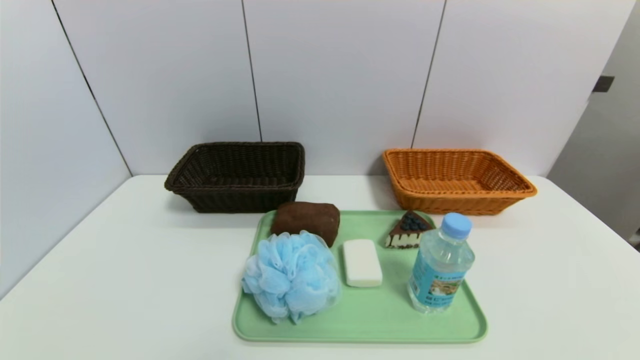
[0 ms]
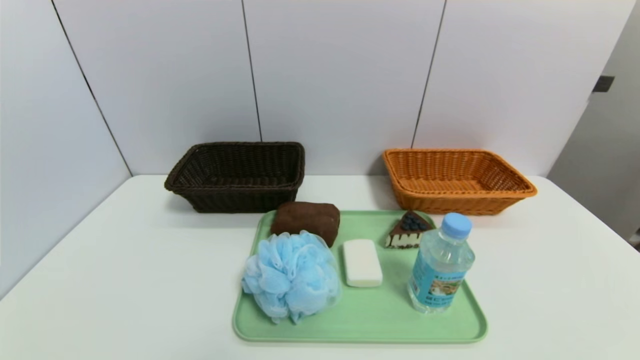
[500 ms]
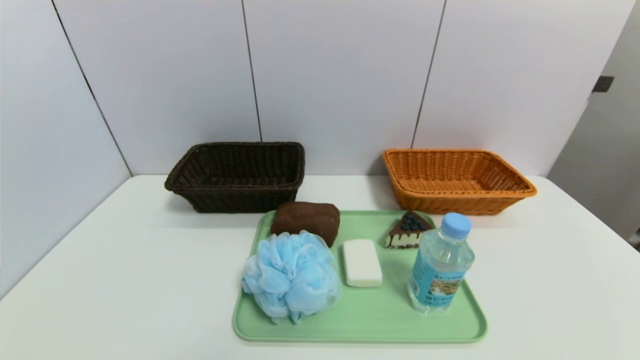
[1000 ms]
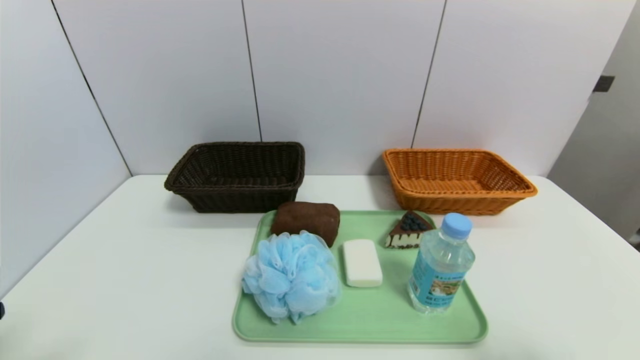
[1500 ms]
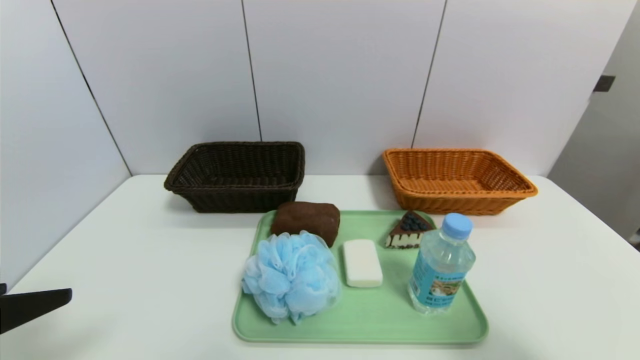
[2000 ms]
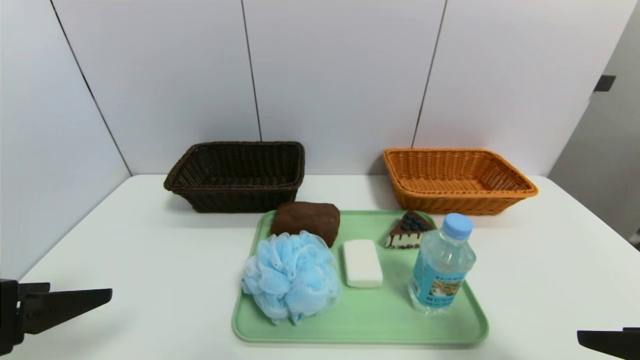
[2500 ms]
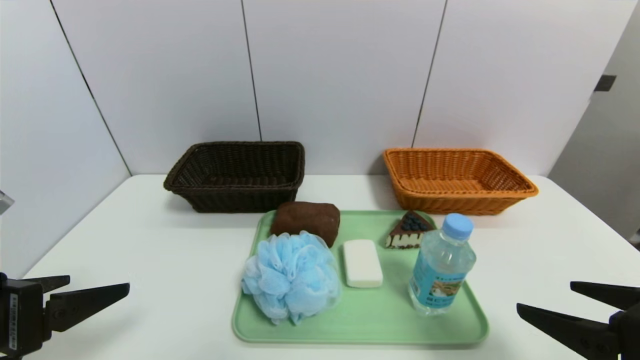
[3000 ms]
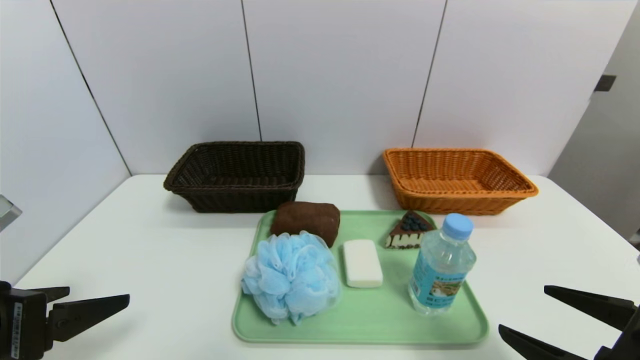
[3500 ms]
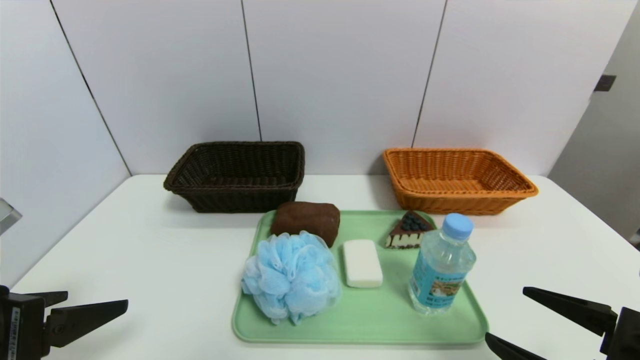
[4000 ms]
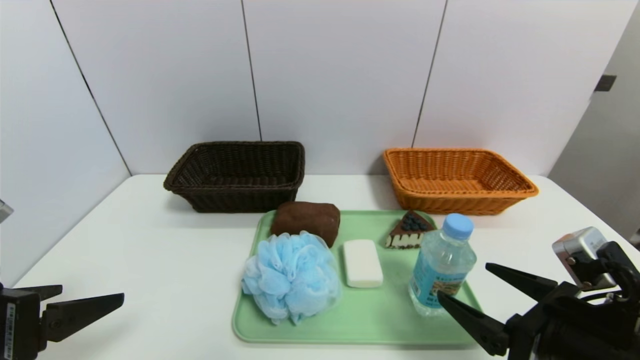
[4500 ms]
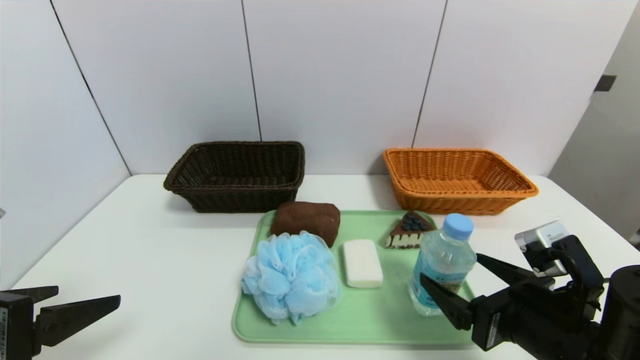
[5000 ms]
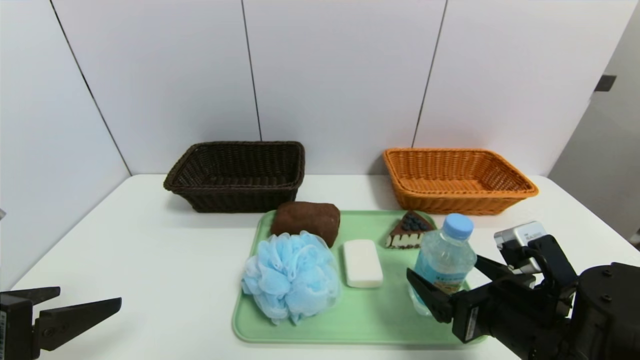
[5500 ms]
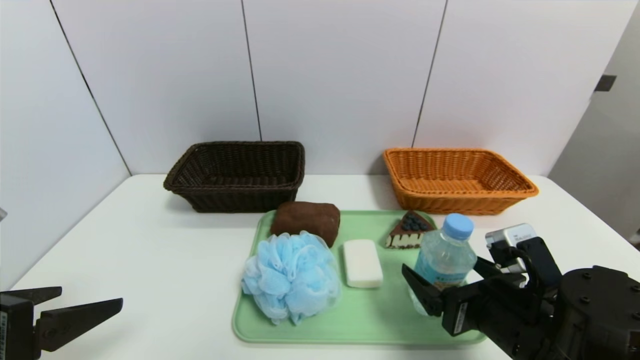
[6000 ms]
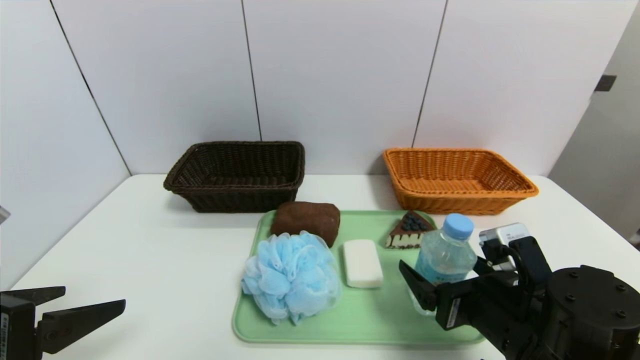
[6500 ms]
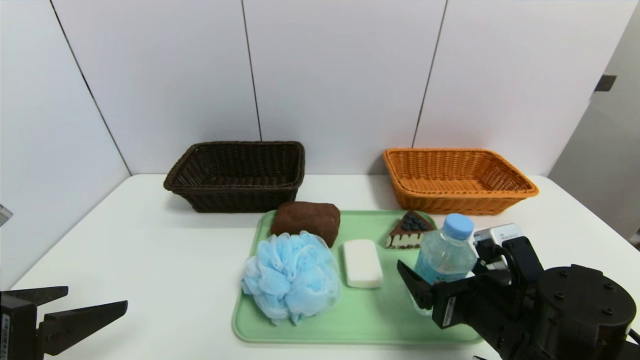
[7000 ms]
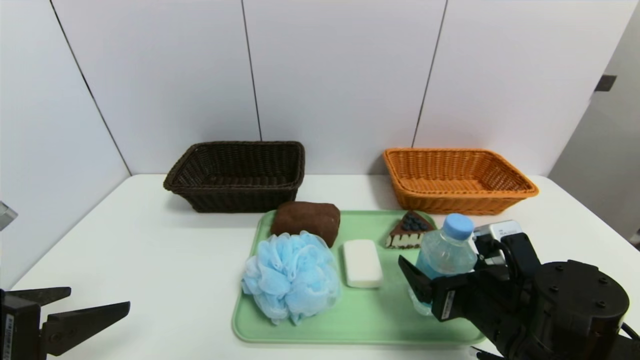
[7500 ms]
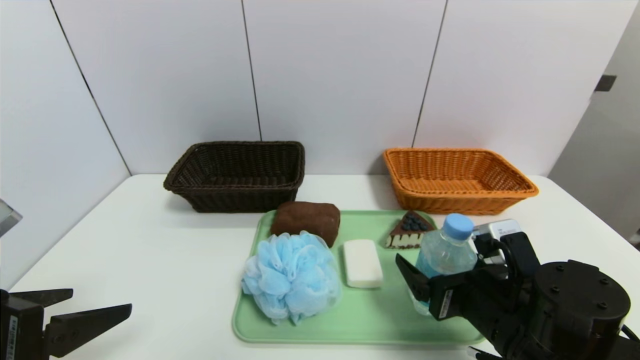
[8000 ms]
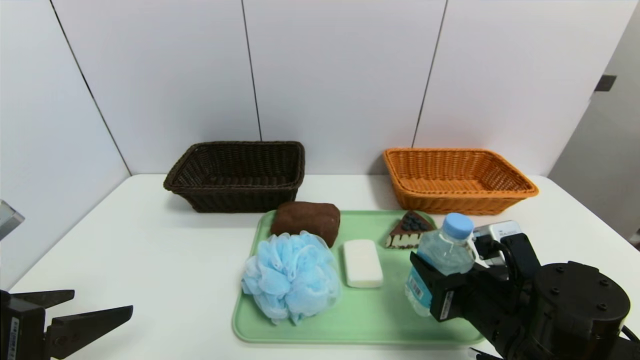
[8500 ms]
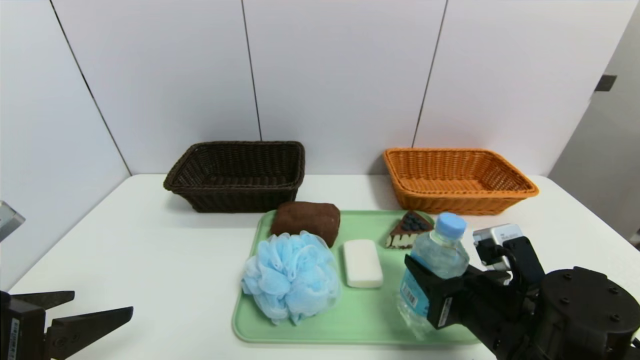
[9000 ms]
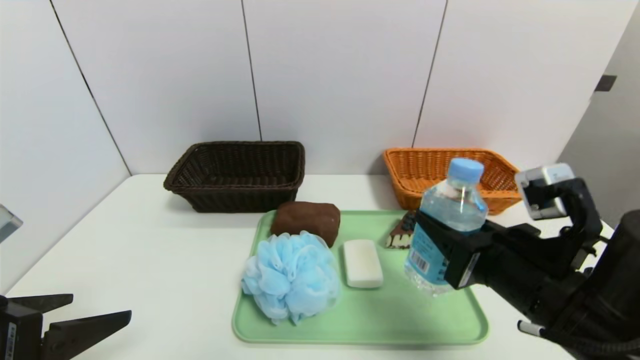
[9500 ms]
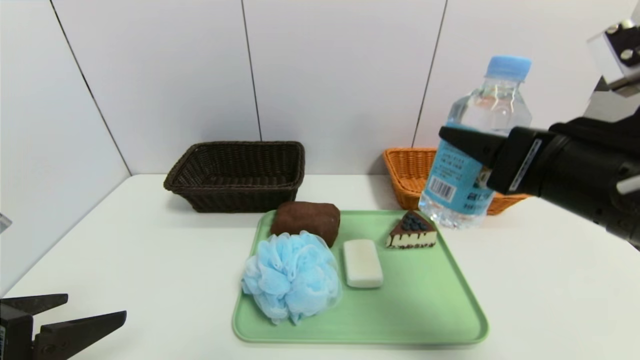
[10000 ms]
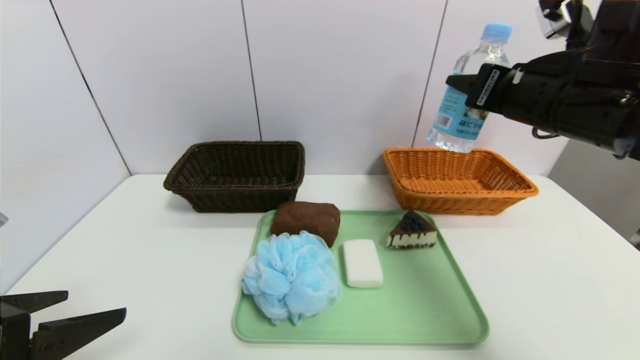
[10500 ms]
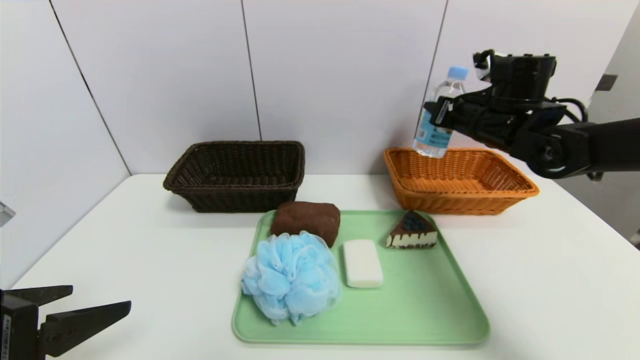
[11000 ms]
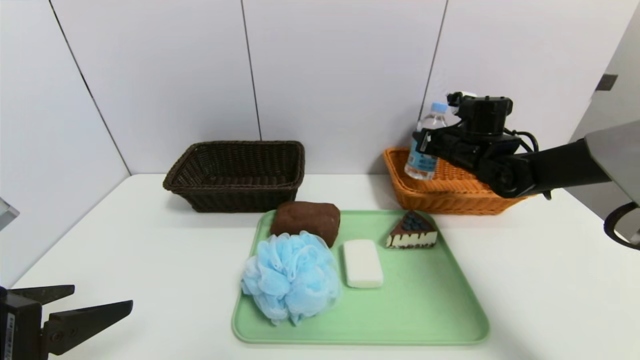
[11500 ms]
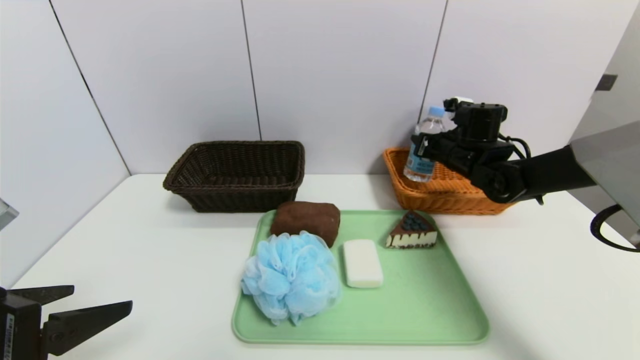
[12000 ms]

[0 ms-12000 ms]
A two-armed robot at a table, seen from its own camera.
Task of the whole recording: place the food in the right basket with the right gripper, and place the non food items in the left basket with the left gripper.
0 ms to 2000 ms: The left gripper is displaced upward and forward by roughly 20 cm. Meanwhile the right gripper shifts some 20 cm upward.
2000 ms to 4000 ms: The right gripper shifts some 15 cm downward and to the left. The left gripper ends up some 5 cm from where it was.
4000 ms to 6000 ms: The right gripper moves forward and to the left, roughly 10 cm.
6000 ms to 8000 ms: There are only small adjustments of the grippers.
8000 ms to 10000 ms: The right gripper is displaced upward by some 20 cm, and closes its fingers.
10000 ms to 12000 ms: The right gripper shifts about 30 cm forward and downward.

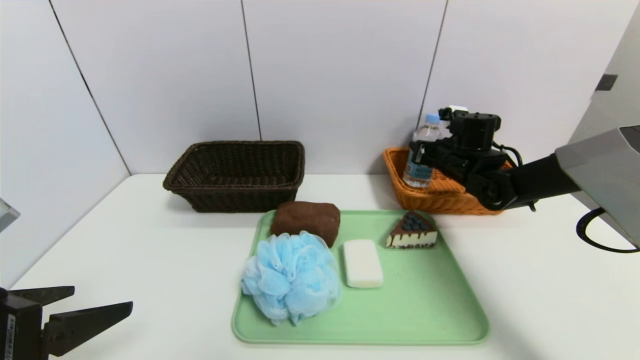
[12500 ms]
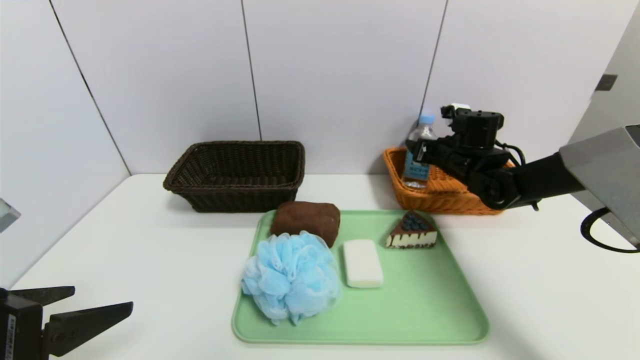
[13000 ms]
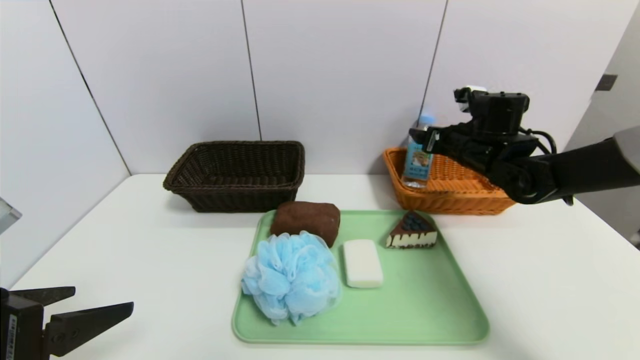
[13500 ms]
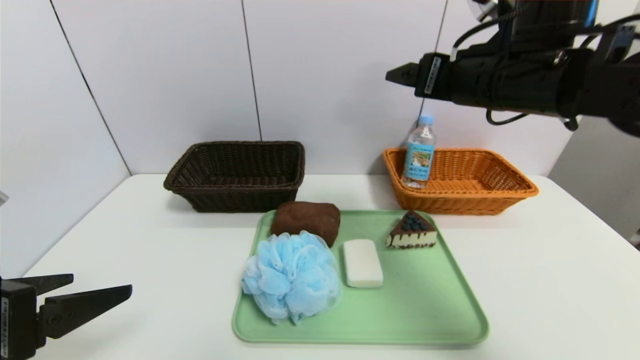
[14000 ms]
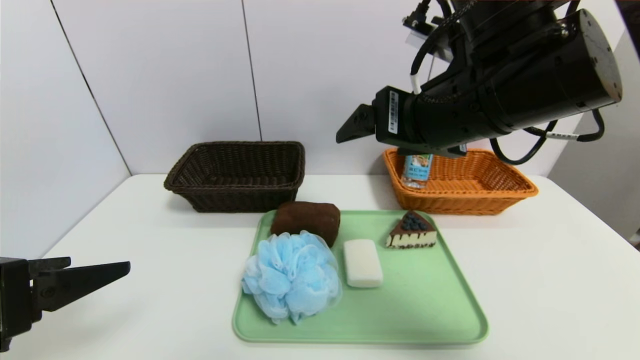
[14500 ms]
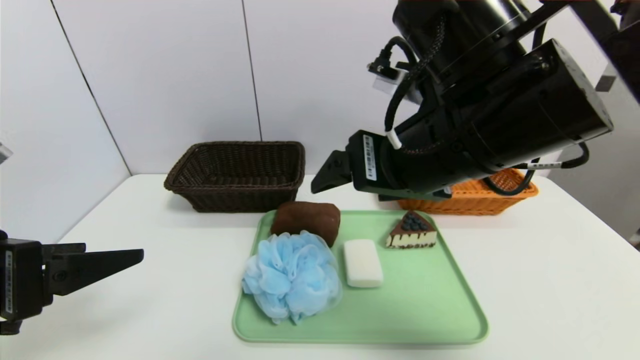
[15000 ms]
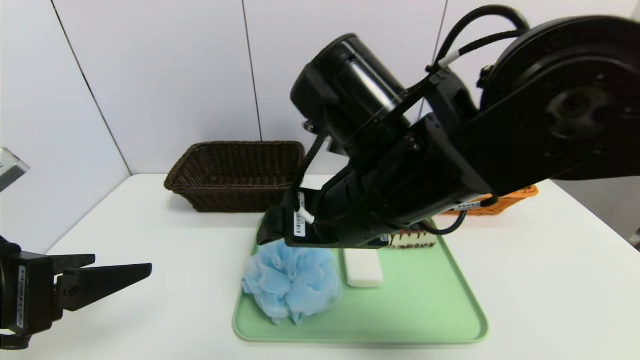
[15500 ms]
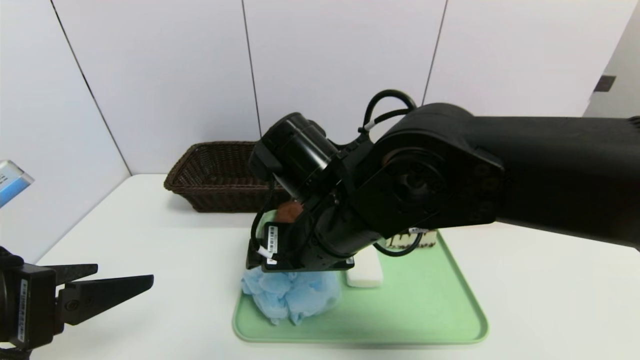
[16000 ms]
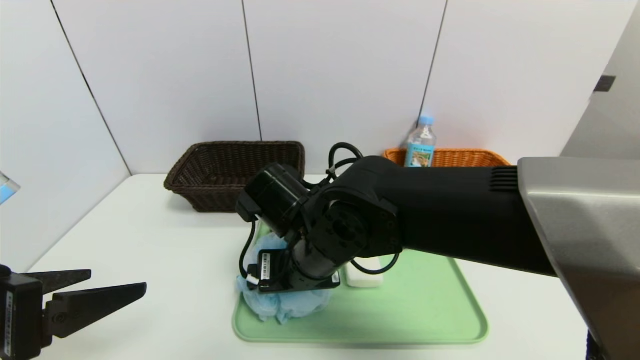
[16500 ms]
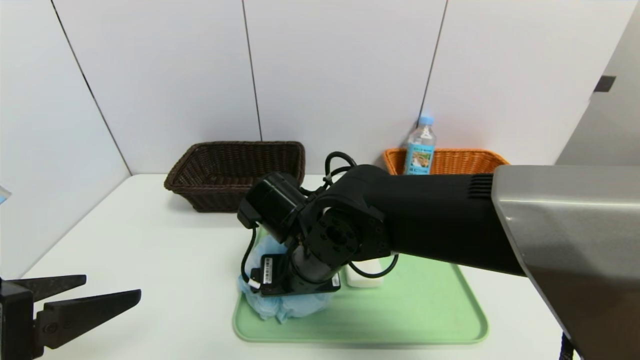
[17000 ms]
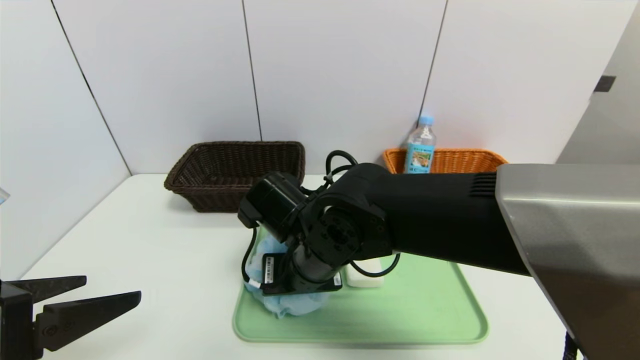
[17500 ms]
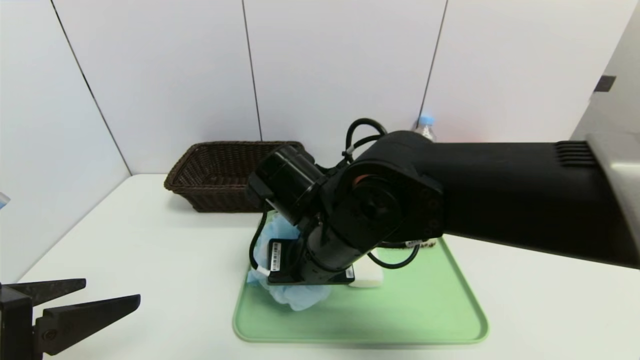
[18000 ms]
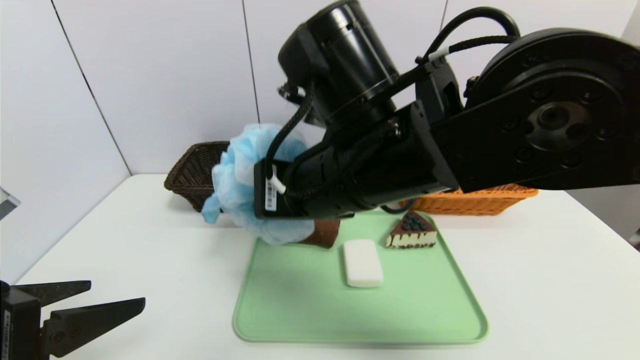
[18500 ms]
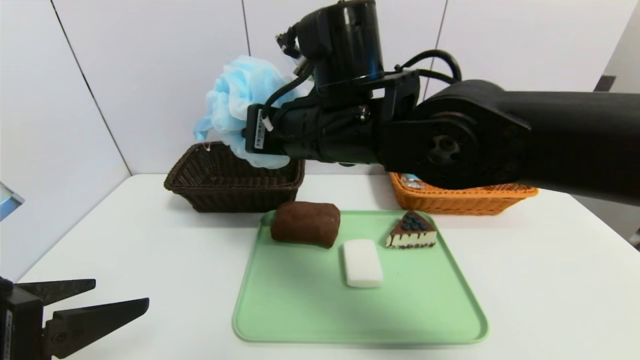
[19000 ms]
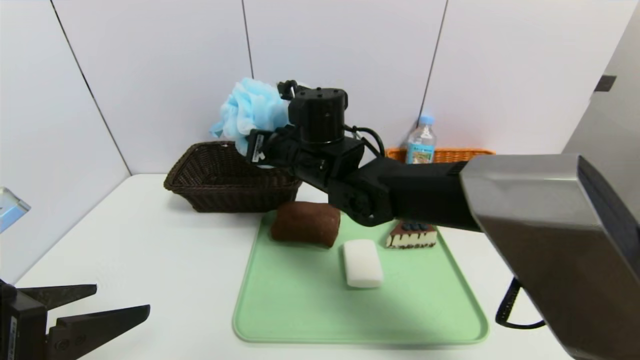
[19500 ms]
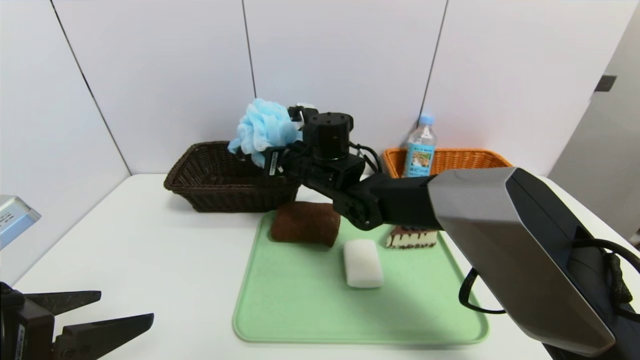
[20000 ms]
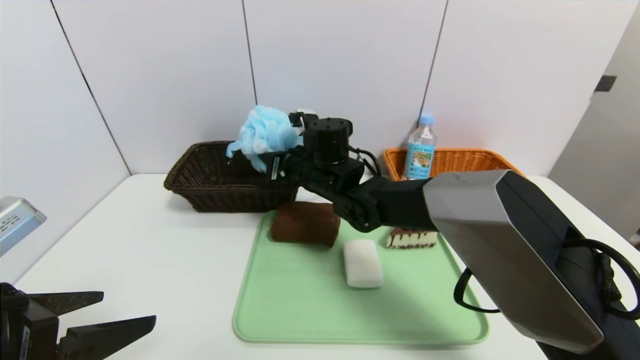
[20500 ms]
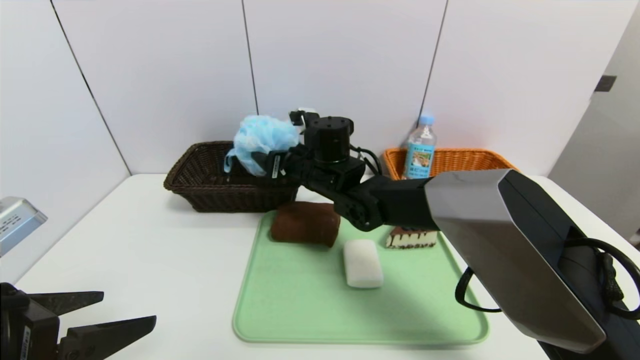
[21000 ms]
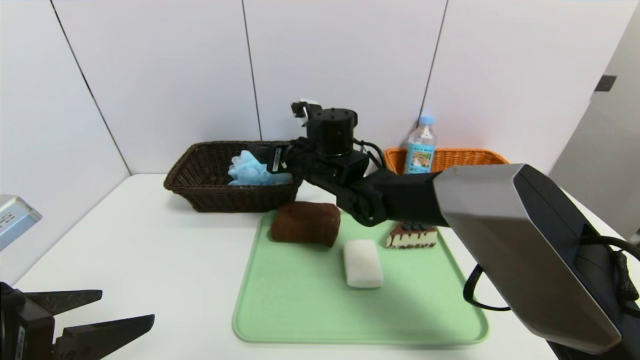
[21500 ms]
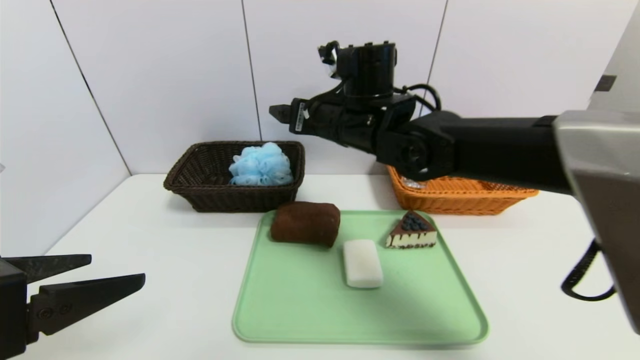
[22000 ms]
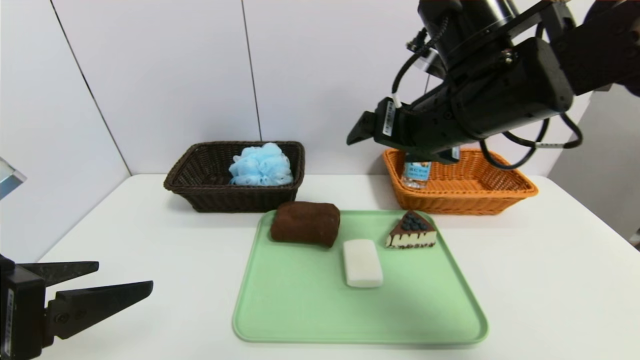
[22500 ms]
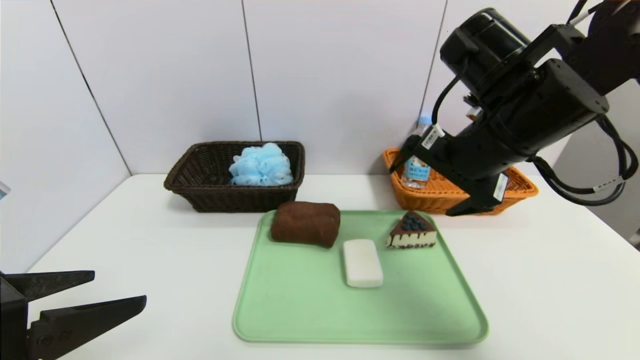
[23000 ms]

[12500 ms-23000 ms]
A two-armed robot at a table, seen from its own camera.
Task of the whole recording: place the food in the right basket with the right gripper, and place the non food items in the left basket with the left gripper.
12500 ms to 14500 ms: The right gripper goes about 30 cm backward, upward and to the left, and opens.
14500 ms to 16500 ms: The right gripper travels downward and to the left by some 20 cm.
16500 ms to 19000 ms: The right gripper goes approximately 10 cm upward, and closes its fingers.
19000 ms to 21000 ms: The right gripper goes about 15 cm downward and forward, and opens up.
21000 ms to 23000 ms: The right gripper is displaced to the right, backward and upward by approximately 25 cm.
